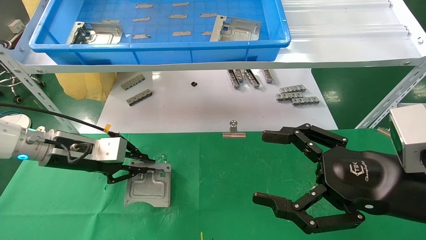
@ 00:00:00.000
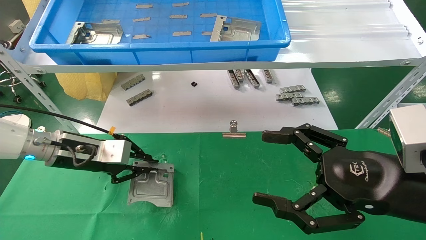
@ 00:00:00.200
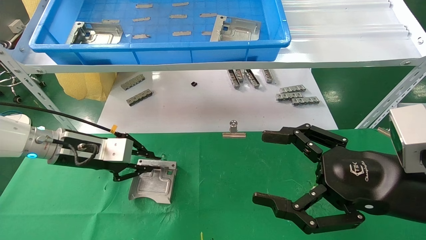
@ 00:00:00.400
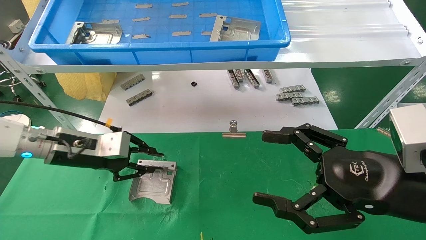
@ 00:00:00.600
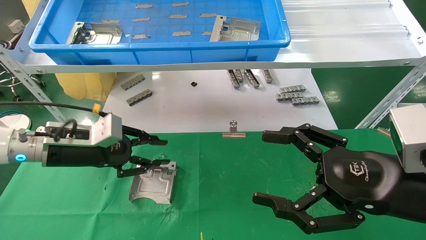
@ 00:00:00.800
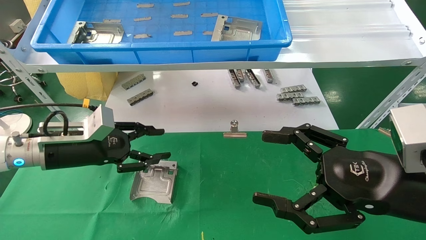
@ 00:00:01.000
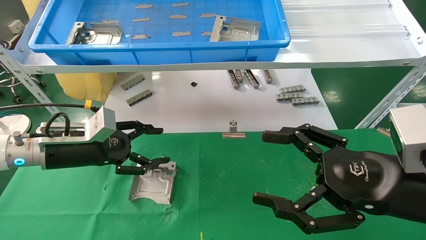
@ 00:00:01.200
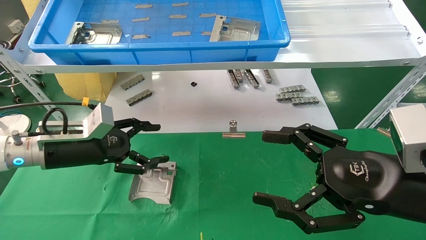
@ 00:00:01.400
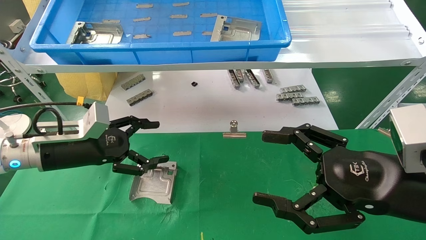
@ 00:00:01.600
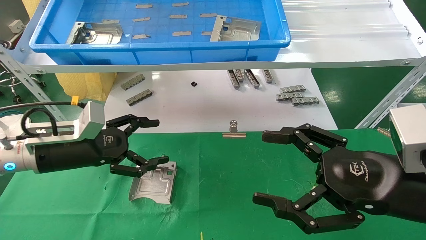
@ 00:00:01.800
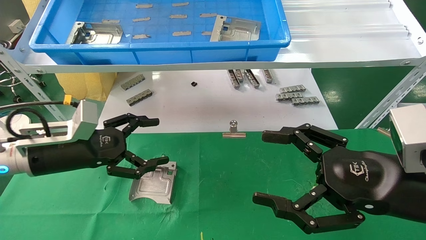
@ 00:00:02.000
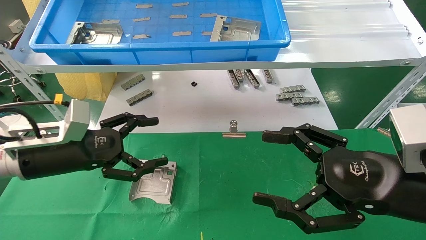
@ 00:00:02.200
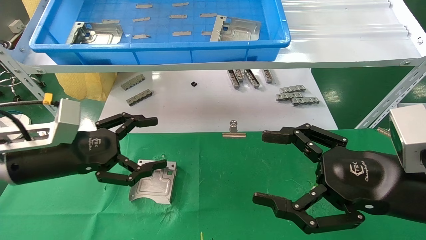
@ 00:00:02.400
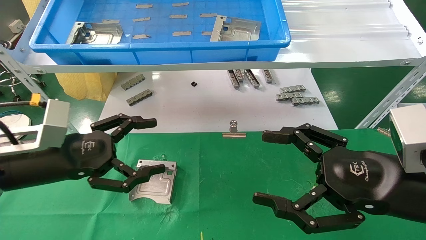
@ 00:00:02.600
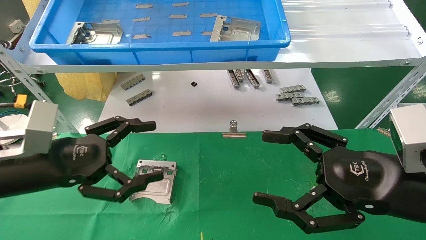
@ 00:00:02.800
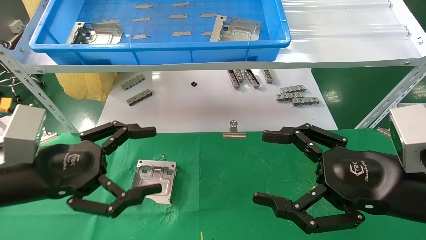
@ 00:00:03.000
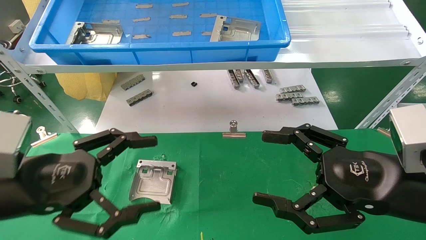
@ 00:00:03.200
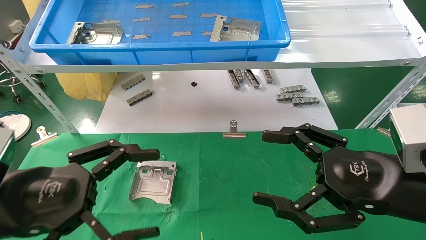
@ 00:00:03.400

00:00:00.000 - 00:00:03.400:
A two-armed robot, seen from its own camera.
Task of the whole recording: use the mechanical arm to pick up the parts and place them on the table.
00:00:00.000 - 00:00:01.600: The left gripper opens its fingers.
00:00:01.600 - 00:00:03.400: The left gripper is displaced backward by approximately 15 cm.
